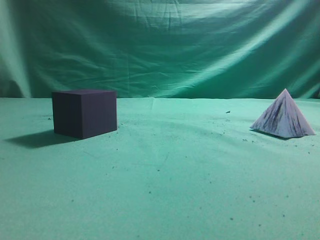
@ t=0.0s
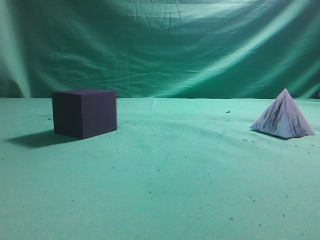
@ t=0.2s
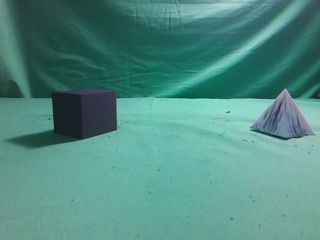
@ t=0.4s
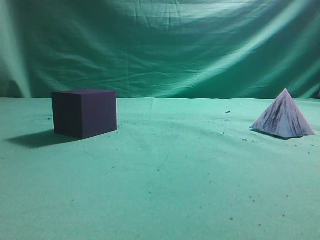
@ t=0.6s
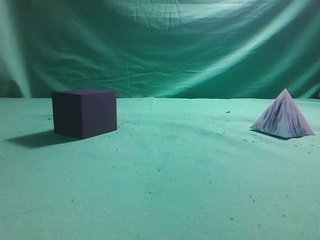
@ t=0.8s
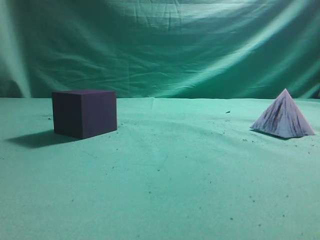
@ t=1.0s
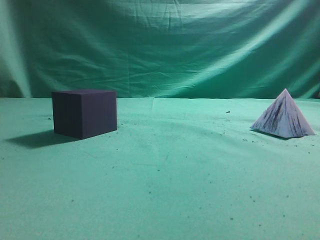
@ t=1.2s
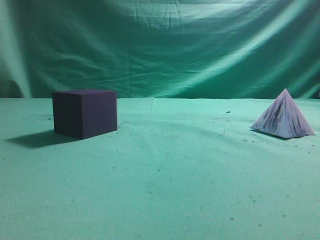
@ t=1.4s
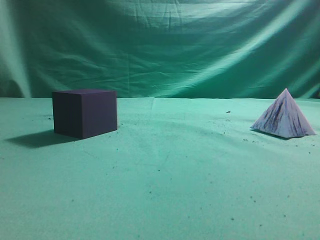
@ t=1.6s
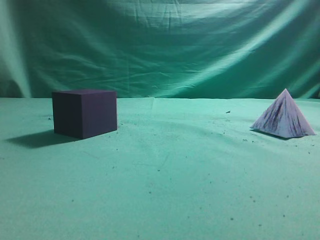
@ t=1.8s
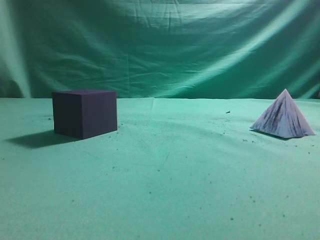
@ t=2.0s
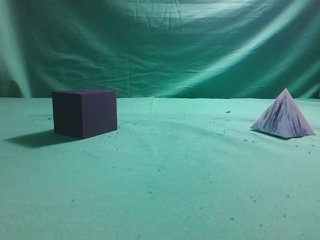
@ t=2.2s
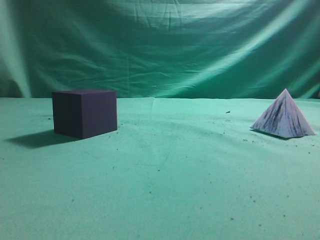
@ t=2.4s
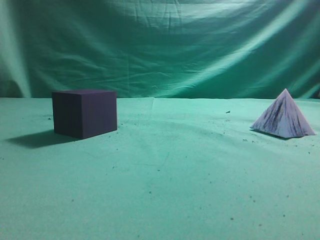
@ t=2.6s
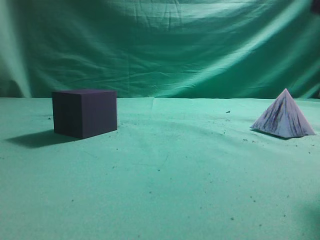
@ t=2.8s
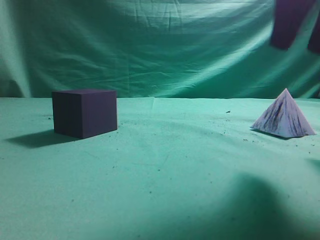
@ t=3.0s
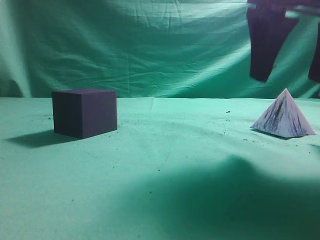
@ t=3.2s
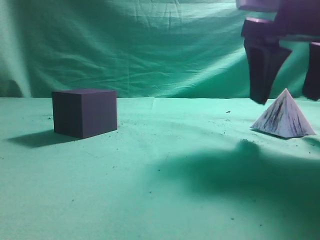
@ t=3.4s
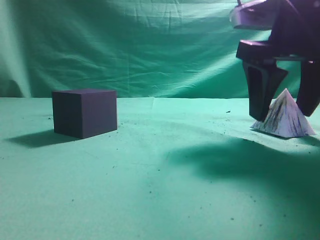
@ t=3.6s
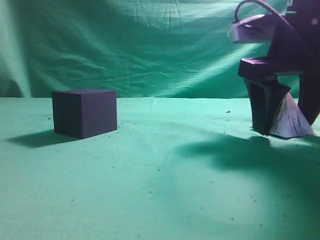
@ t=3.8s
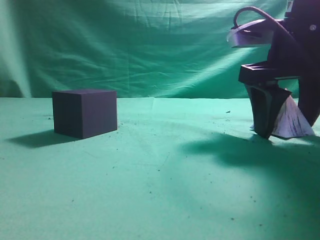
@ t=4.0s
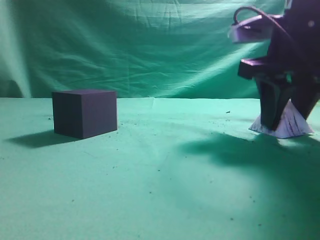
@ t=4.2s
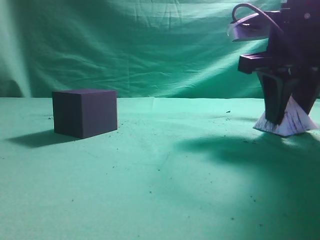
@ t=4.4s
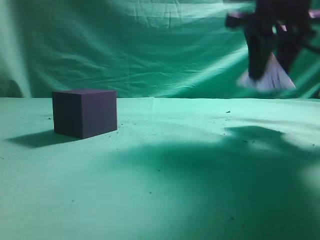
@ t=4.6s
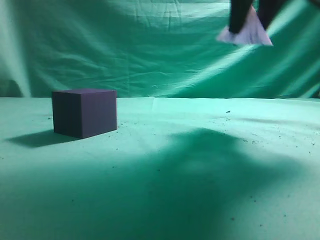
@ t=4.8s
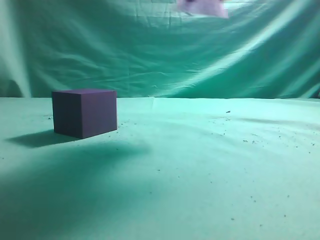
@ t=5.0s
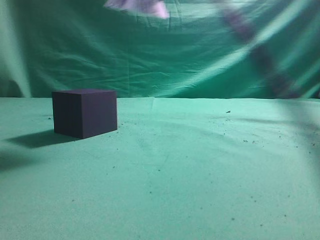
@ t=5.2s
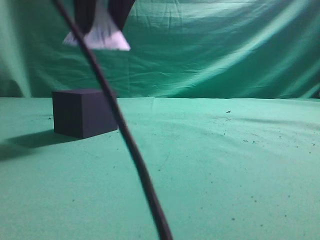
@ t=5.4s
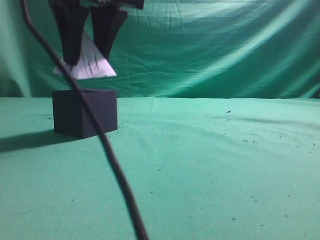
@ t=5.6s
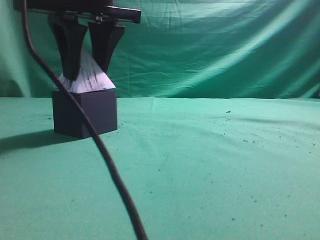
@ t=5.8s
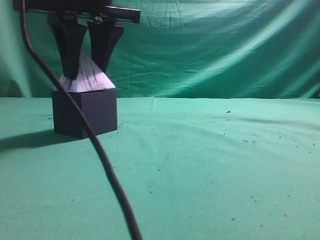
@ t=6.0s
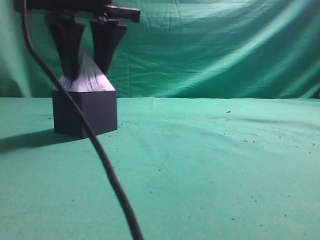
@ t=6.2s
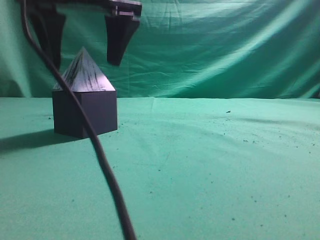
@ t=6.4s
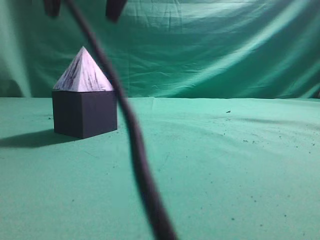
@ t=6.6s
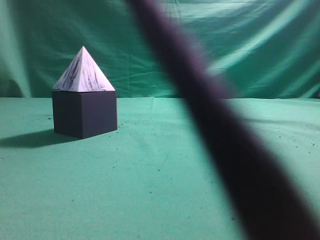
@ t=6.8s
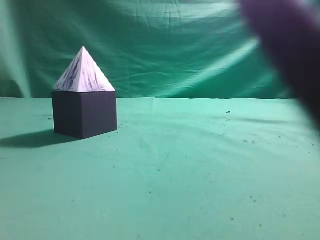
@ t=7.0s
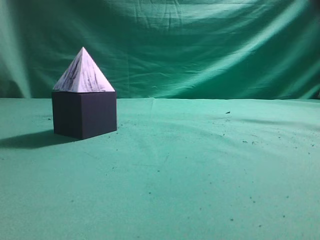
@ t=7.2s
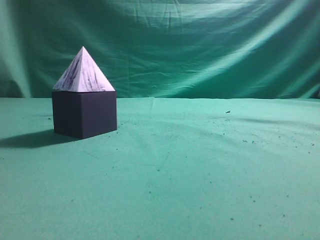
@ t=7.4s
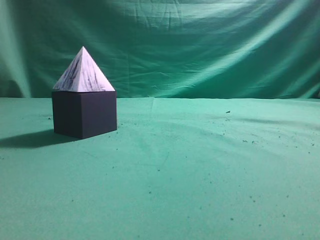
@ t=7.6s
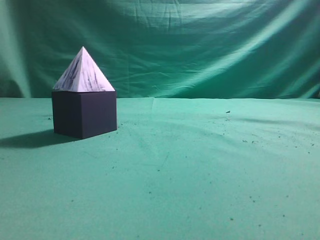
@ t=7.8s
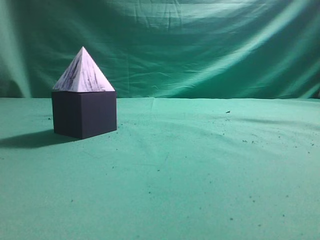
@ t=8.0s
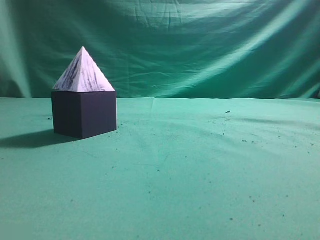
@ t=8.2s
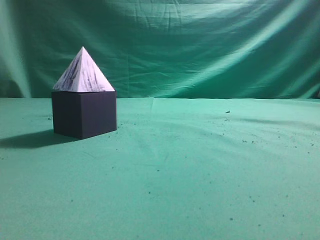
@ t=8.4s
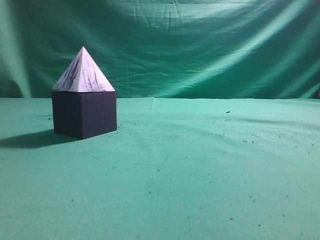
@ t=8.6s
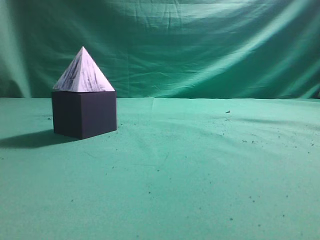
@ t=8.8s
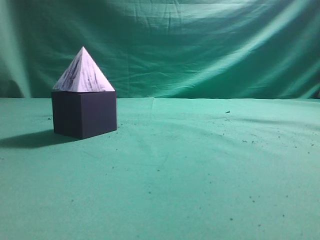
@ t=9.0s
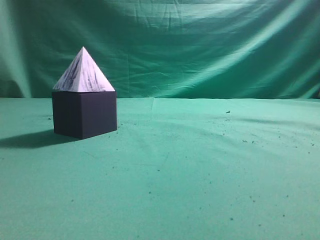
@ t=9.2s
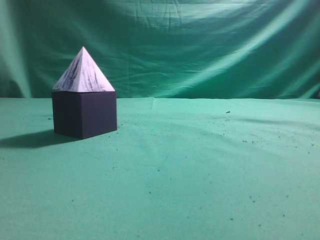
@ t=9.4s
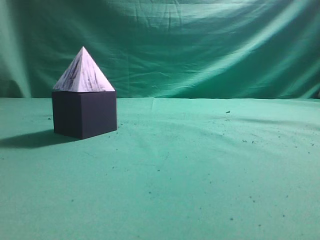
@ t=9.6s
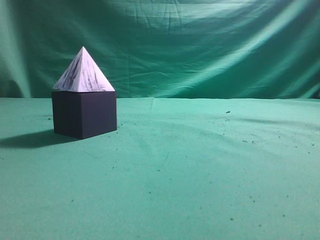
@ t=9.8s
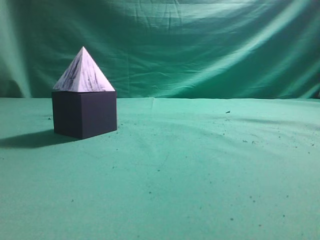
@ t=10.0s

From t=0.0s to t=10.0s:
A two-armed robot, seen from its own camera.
Task of the whole recording: pick up the square pyramid from the table and place it on the cube block.
Step, from t=0.0s to t=4.6s: Grasp the triangular block.
Step, from t=4.8s to t=6.4s: Place the block onto the cube-shaped block.
From t=1.4s to t=2.8s: The right gripper moves forward, upward and to the left, roughly 20 cm.
From t=2.8s to t=4.2s: The right gripper goes some 15 cm downward and forward, and opens up.
From t=4.2s to t=5.8s: The right gripper travels to the left by roughly 25 cm.
From t=5.8s to t=7.2s: The right gripper travels upward, to the right and backward by about 25 cm, and closes up.
From t=7.2s to t=8.6s: The right gripper shifts about 30 cm to the right, backward and downward.
